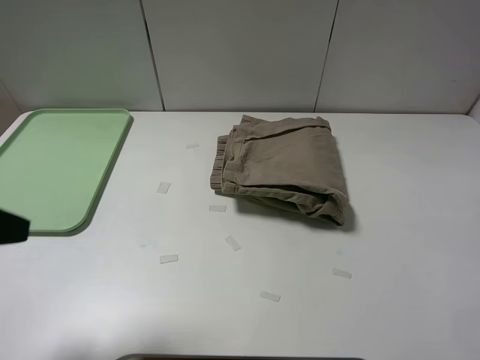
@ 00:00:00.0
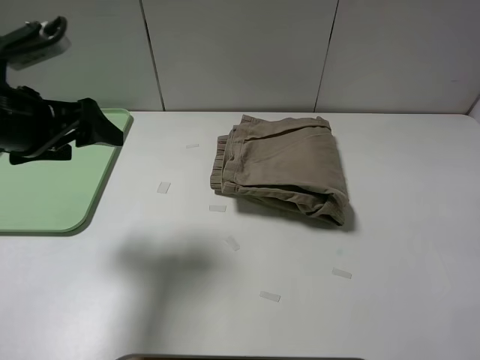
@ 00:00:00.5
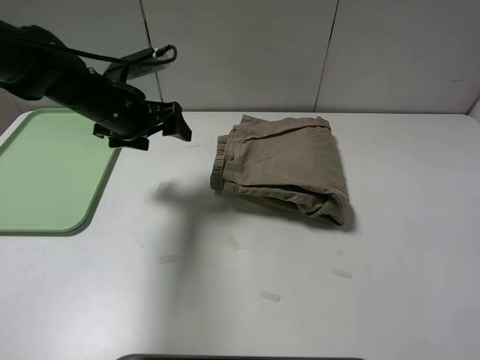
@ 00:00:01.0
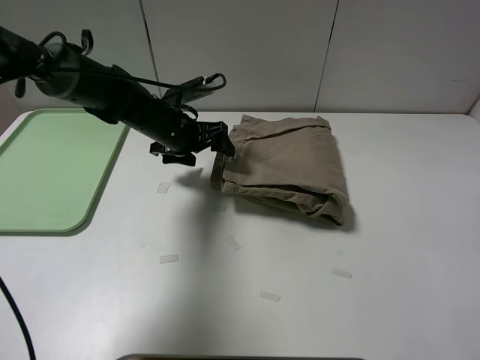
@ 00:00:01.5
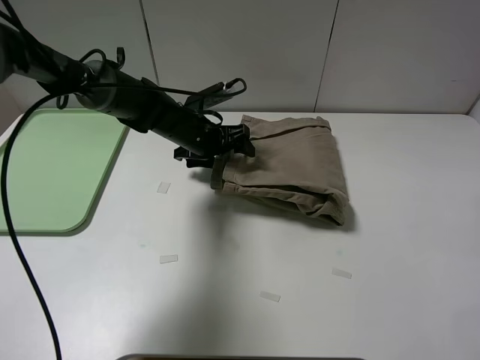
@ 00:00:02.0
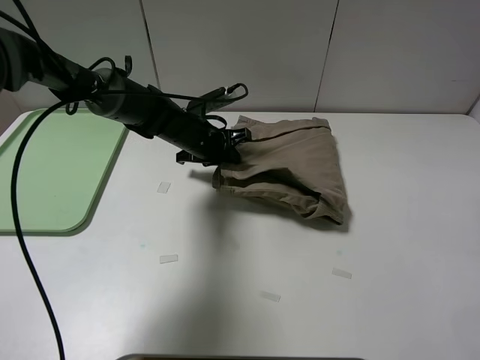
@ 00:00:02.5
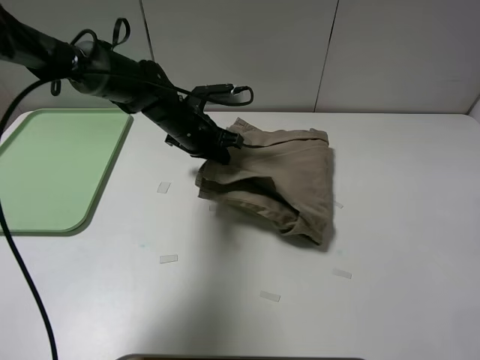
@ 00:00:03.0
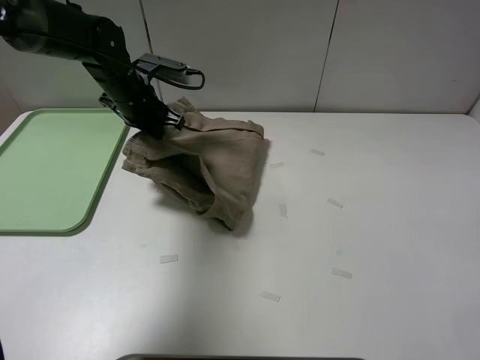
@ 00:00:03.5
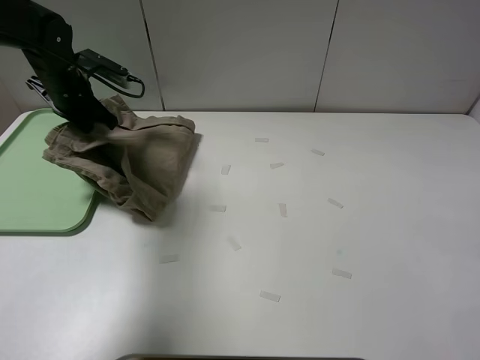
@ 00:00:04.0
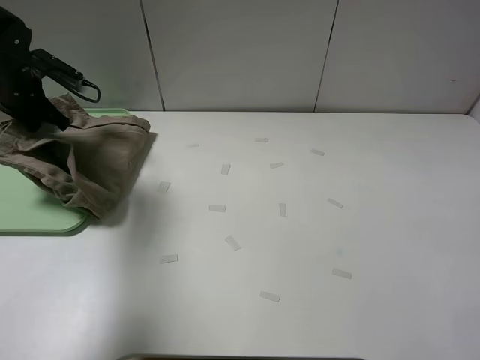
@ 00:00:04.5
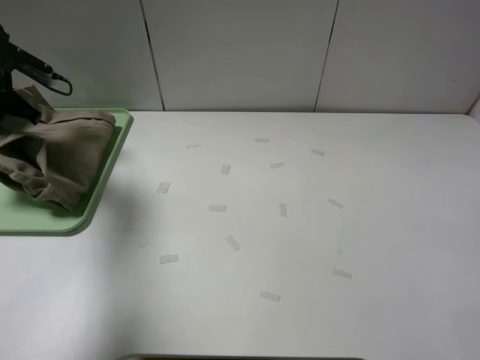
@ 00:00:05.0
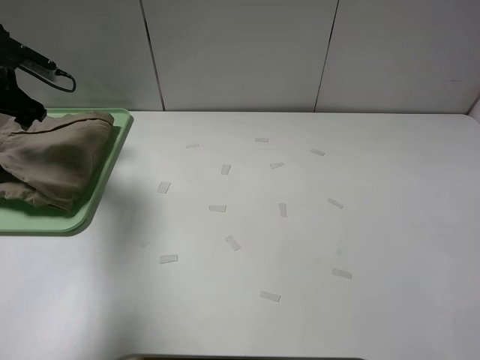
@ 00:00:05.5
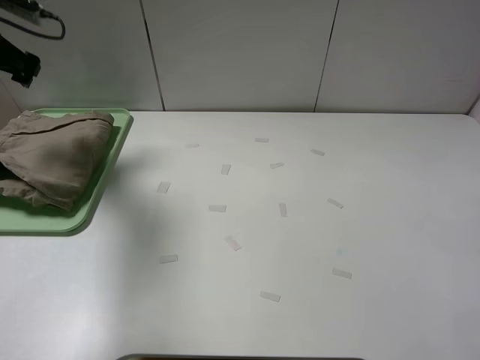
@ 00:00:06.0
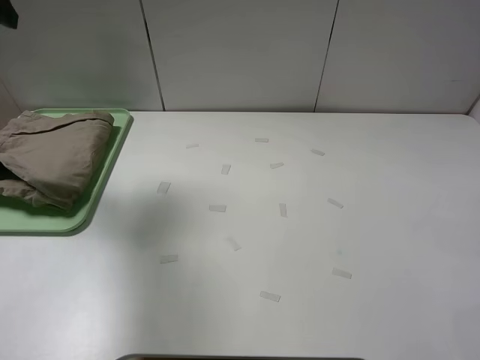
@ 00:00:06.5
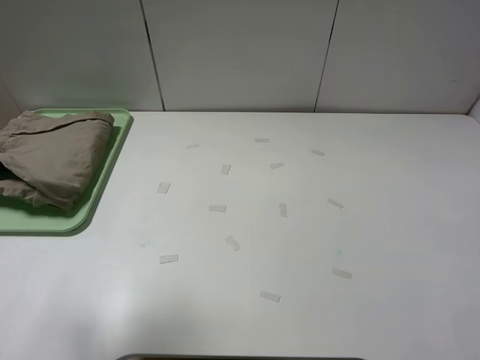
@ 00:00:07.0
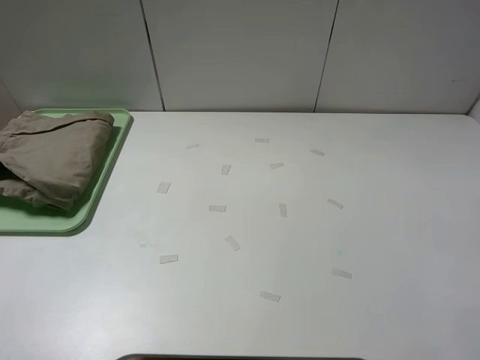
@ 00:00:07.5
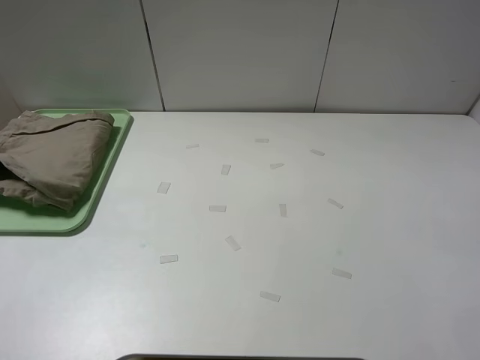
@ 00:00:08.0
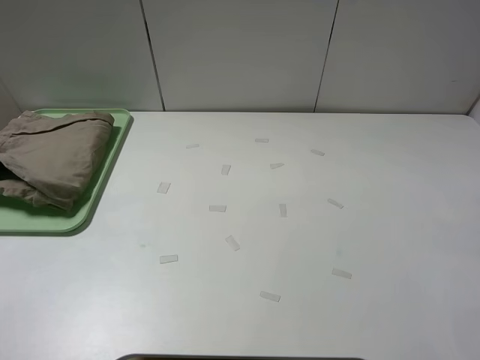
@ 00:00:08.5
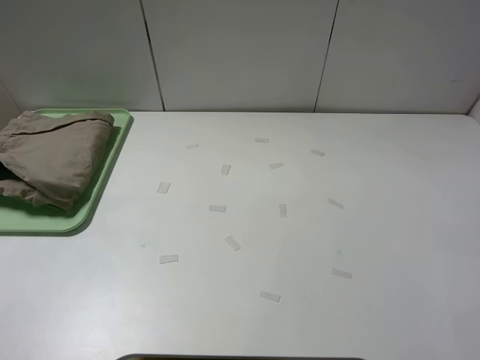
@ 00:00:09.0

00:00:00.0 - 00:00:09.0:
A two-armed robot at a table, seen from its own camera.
Task of the whole recording: fold the khaki jeans in half with two grippers, then fold them in half again, and use the left claw to place the folded fold khaki jeans on the tray.
Step, 00:00:00.0 - 00:00:02.5: Grasp the khaki trousers with the left gripper.
Step, 00:00:03.0 - 00:00:05.5: Place the folded khaki trousers on the green tray with the left gripper.
00:00:00.0 - 00:00:02.0: The left gripper moves forward, to the right and downward, approximately 40 cm.
00:00:02.0 - 00:00:04.5: The left gripper moves to the left, some 25 cm, and closes up.
00:00:04.5 - 00:00:07.0: The left gripper moves backward and upward, roughly 35 cm, and opens.
00:00:07.0 - 00:00:09.0: The left gripper is displaced backward and downward by about 15 cm.
